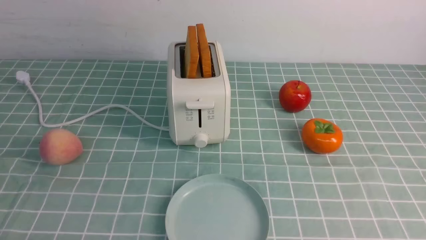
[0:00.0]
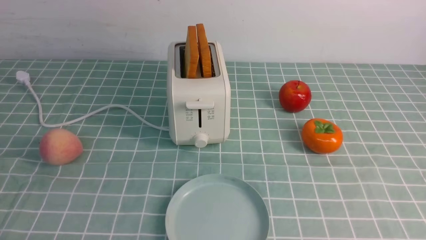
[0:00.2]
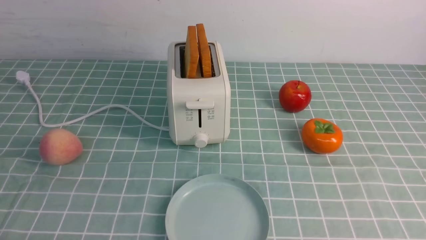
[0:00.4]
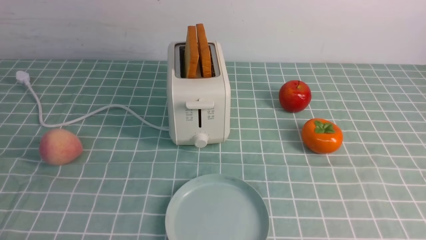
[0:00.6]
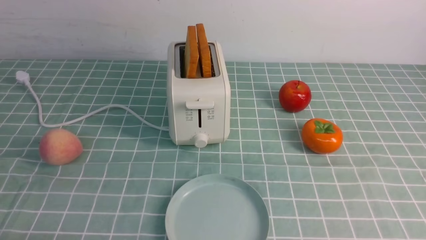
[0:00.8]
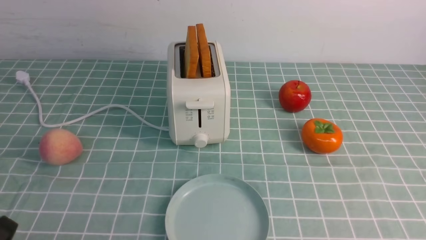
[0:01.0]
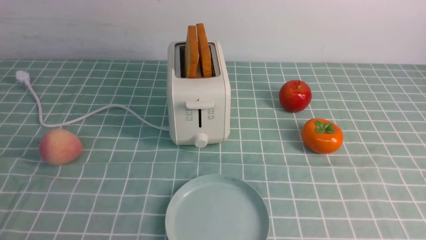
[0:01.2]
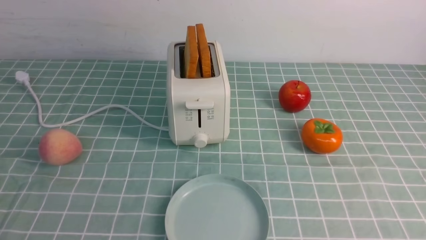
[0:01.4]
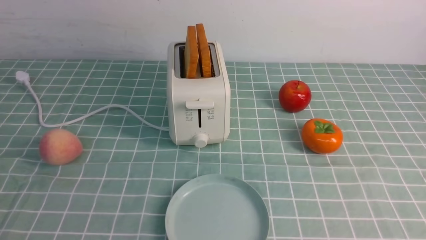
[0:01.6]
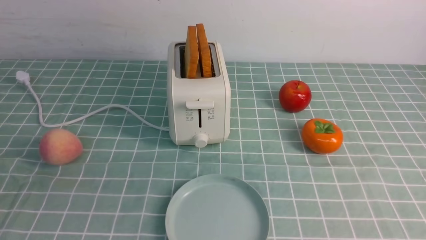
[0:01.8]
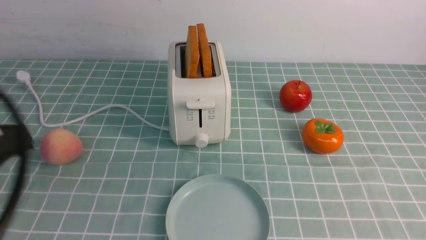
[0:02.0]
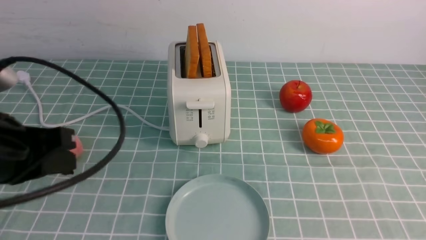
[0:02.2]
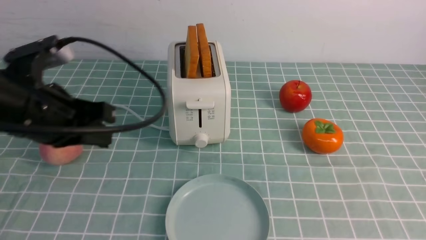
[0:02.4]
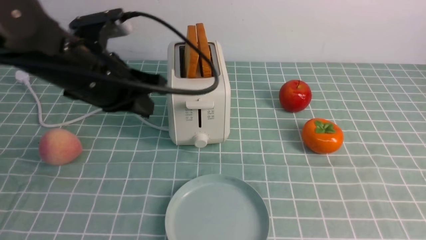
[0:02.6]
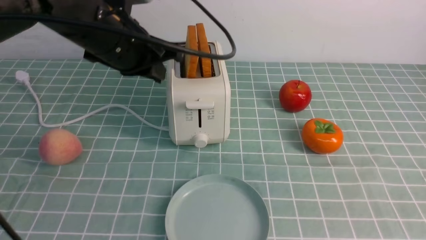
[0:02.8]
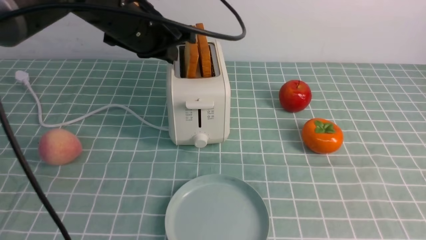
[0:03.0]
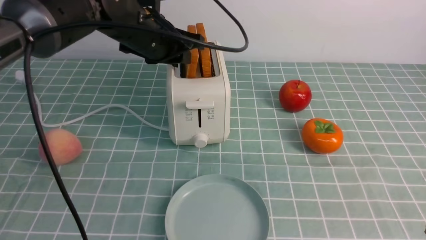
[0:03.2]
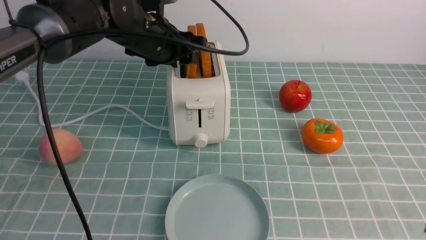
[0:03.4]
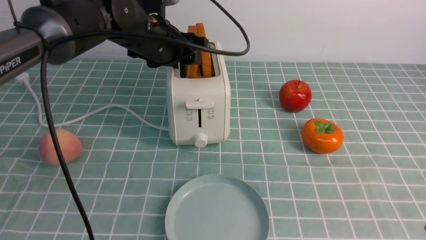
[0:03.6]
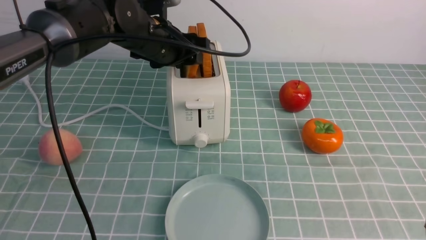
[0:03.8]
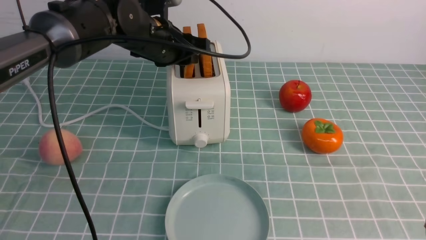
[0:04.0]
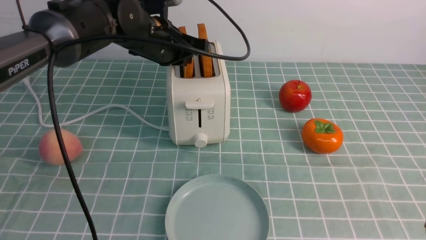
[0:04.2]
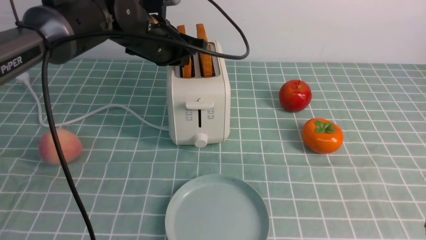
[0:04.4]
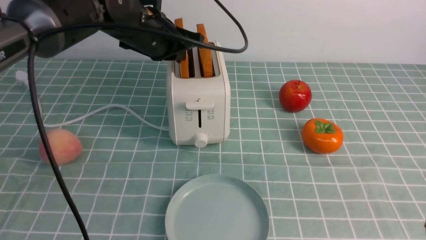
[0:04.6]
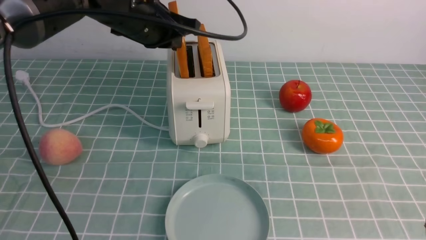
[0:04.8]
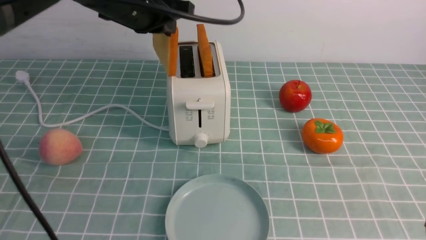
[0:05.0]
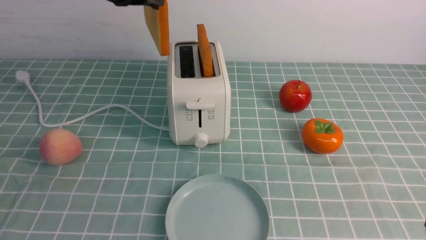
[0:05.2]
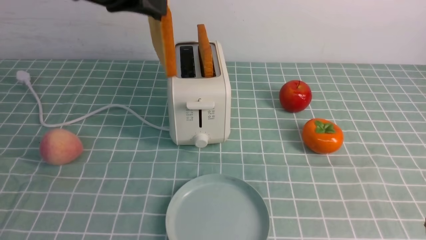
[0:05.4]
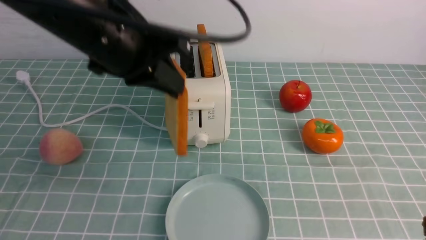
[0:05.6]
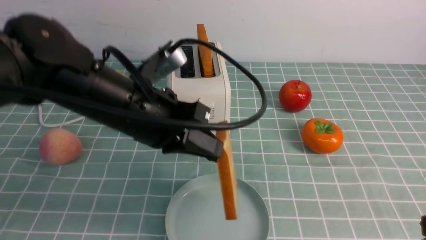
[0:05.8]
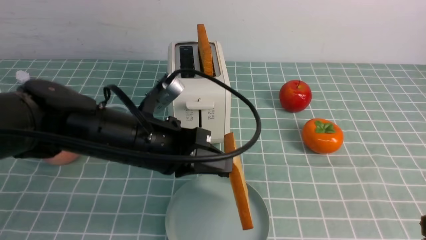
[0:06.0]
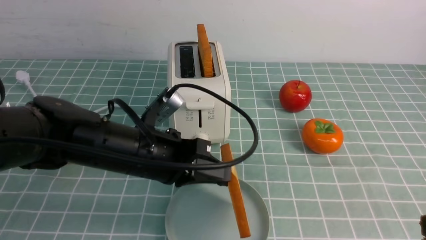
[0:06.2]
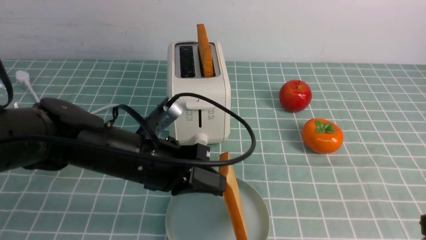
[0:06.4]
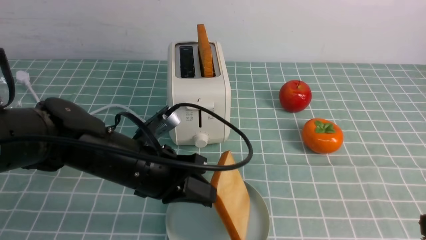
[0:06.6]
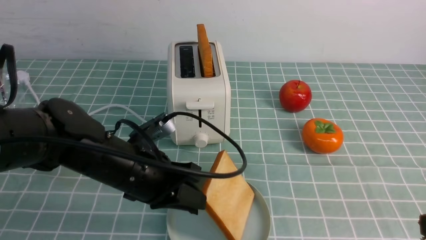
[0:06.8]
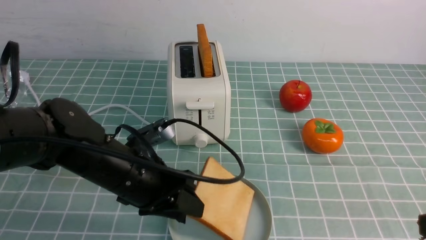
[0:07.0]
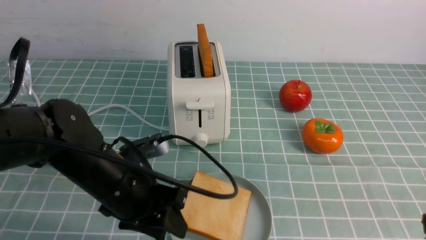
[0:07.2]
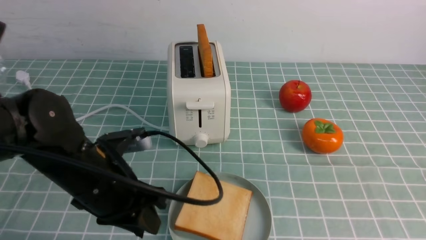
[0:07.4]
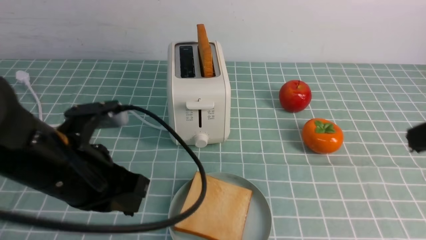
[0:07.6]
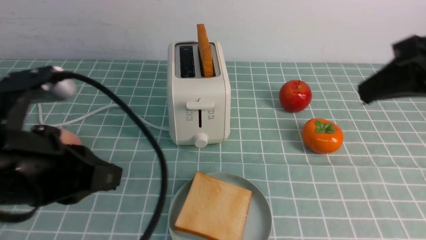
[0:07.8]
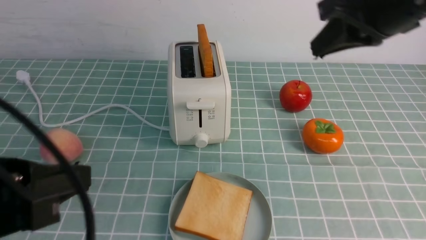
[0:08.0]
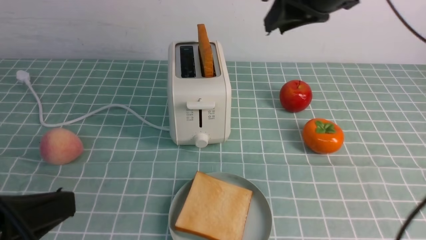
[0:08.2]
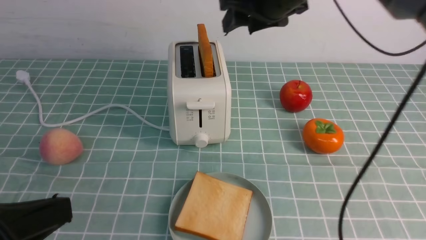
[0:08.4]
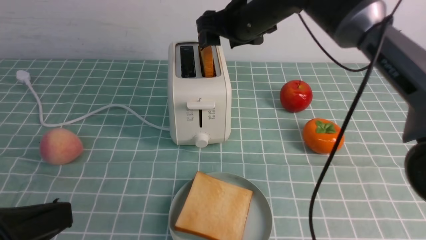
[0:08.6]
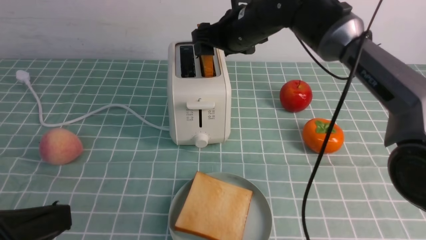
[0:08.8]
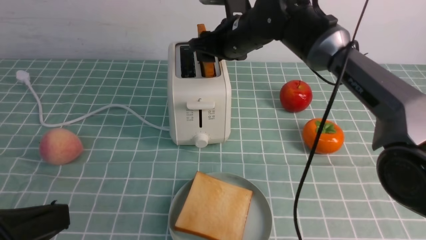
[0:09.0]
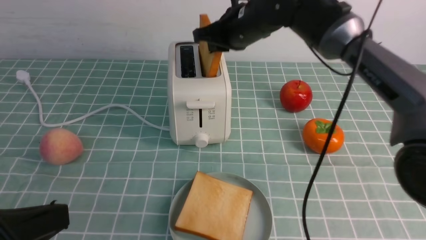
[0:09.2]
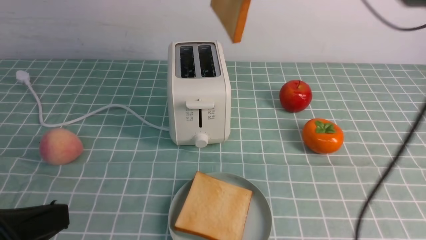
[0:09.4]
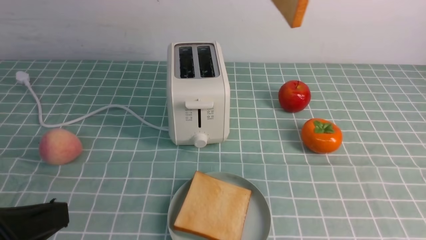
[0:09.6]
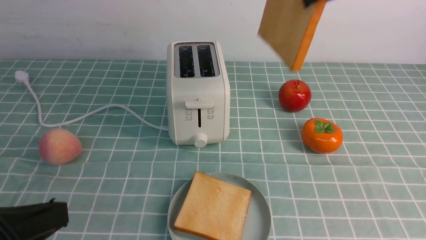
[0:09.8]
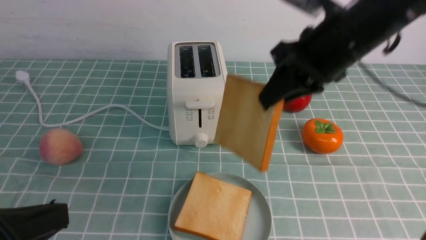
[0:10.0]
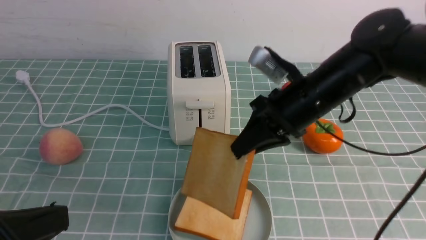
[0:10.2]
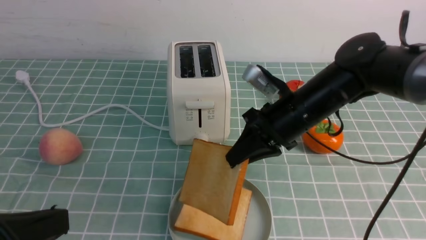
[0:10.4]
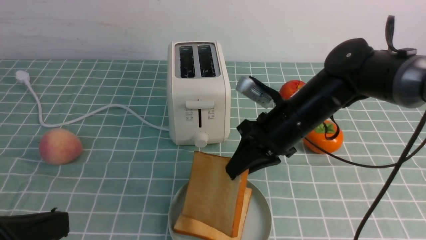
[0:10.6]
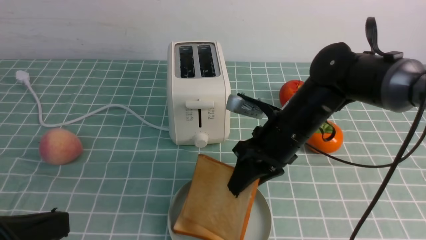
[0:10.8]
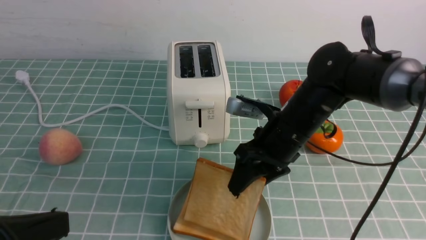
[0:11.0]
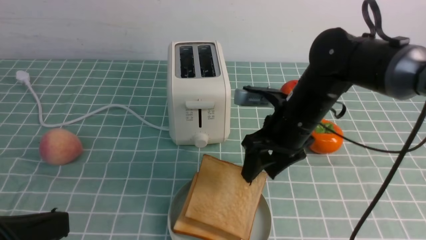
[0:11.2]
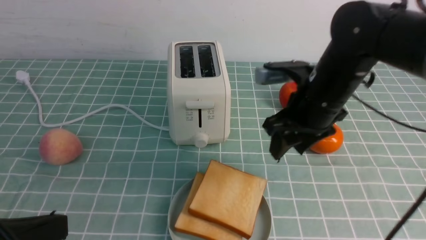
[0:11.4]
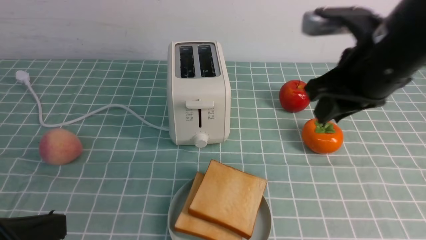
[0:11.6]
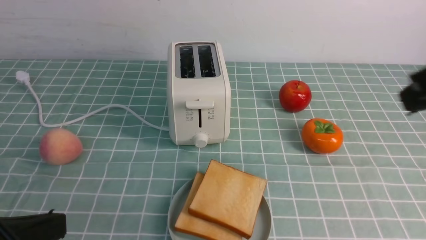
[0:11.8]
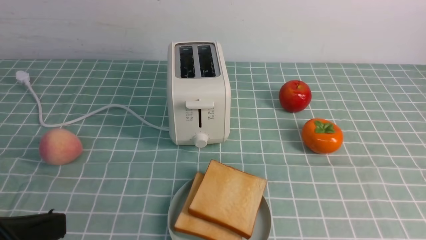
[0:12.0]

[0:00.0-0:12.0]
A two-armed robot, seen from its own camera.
Task of the whole recording: take toasted bread from bread machine on blue coffee table place on plate.
Step, 0:00.0 to 0:04.8: use the left arm to take out a slice of bread.
Step, 0:05.2 to 0:07.2: use the left arm to put a slice of bread into the empty plate.
Step, 0:07.4 to 0:09.2: use the right arm to take out a slice of bread.
Step, 0:09.4 to 0:11.2: use the right arm to put a slice of bread into the plate.
0:01.6 to 0:03.0: The right gripper heads upward and forward, covering about 15 cm, and closes its fingers; the left gripper shifts approximately 40 cm forward and to the right.
0:03.0 to 0:04.4: The left gripper opens, then closes again.
0:04.4 to 0:06.0: The left gripper moves backward, roughly 15 cm.
0:06.0 to 0:07.6: The left gripper goes roughly 10 cm backward and to the left, moves some 5 cm downward and comes back, and opens and closes again. Meanwhile the right gripper shifts roughly 10 cm upward and forward.
0:07.6 to 0:09.0: The left gripper is displaced backward and to the left by roughly 15 cm; the right gripper goes approximately 35 cm forward and to the left, and opens.
0:09.0 to 0:10.4: The right gripper travels backward and to the right by approximately 15 cm, travels upward and back again, about 15 cm each way, and closes up.
0:10.4 to 0:12.0: The right gripper is displaced backward, to the right and upward by roughly 35 cm, and opens and closes again.

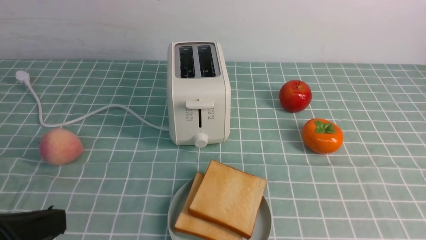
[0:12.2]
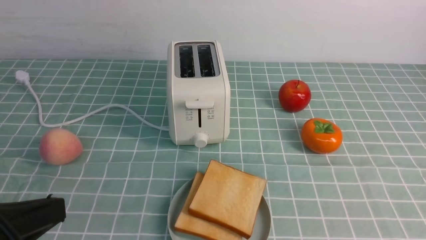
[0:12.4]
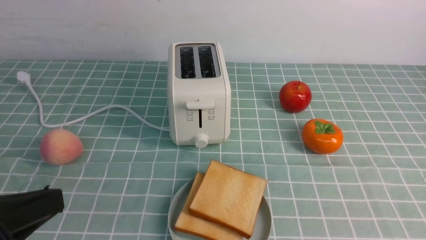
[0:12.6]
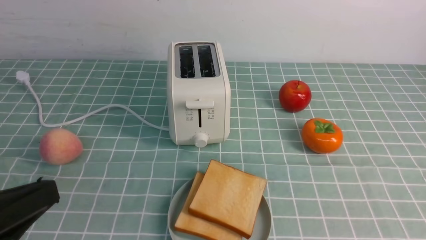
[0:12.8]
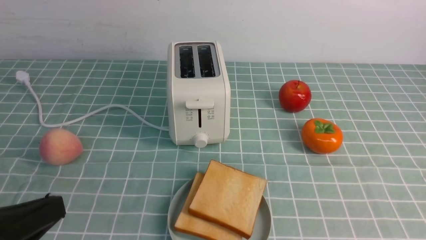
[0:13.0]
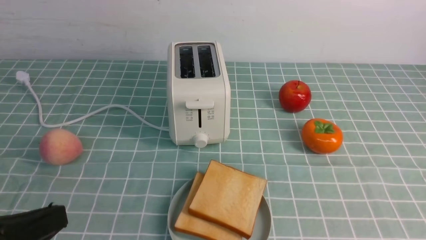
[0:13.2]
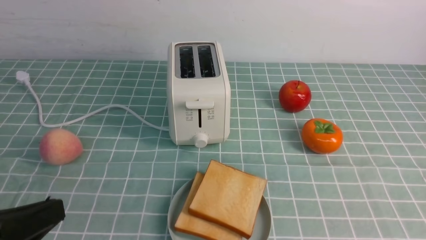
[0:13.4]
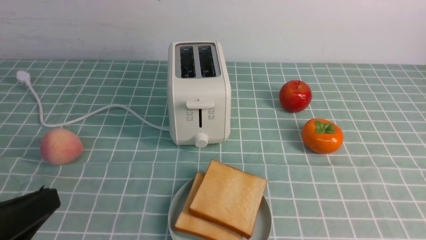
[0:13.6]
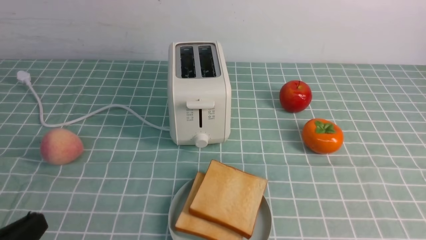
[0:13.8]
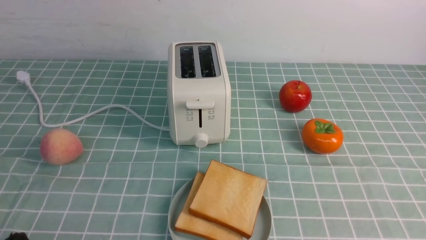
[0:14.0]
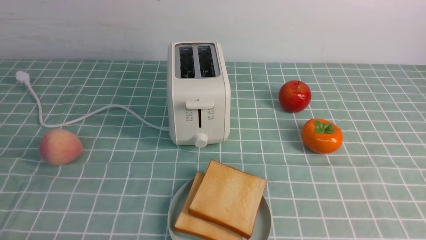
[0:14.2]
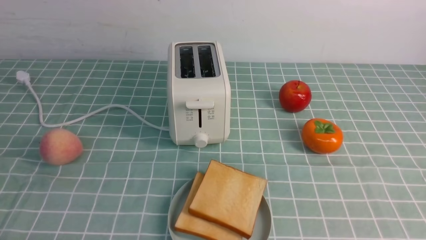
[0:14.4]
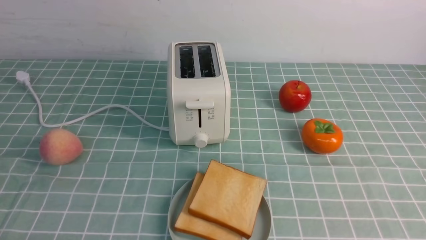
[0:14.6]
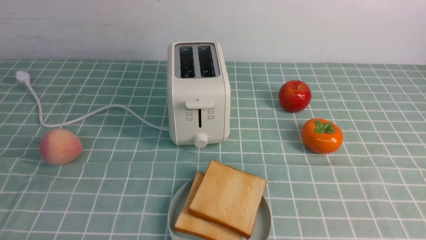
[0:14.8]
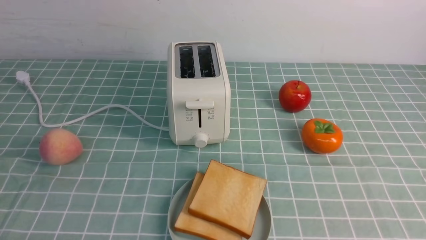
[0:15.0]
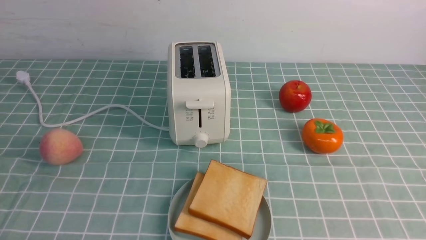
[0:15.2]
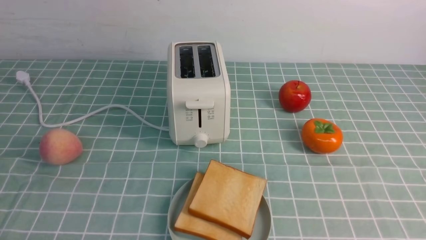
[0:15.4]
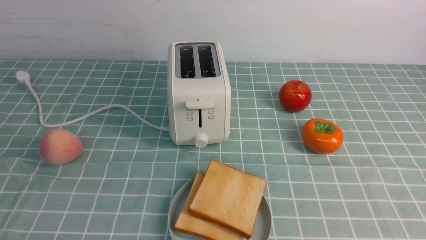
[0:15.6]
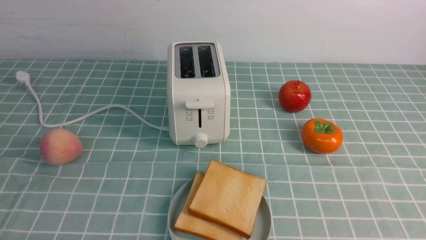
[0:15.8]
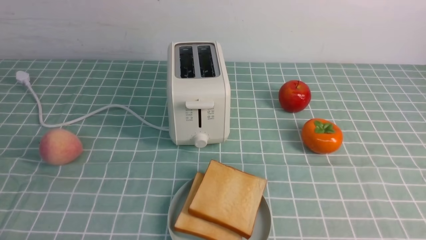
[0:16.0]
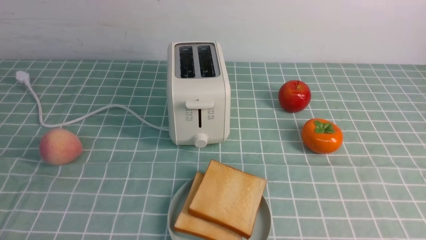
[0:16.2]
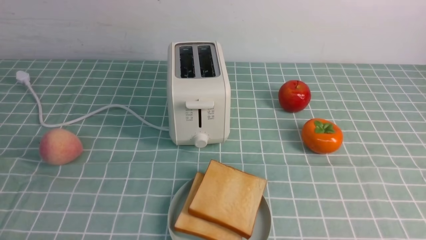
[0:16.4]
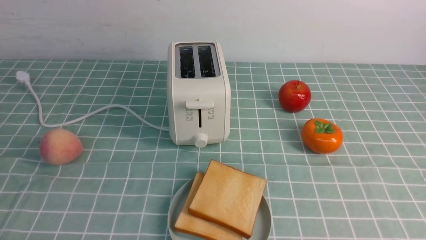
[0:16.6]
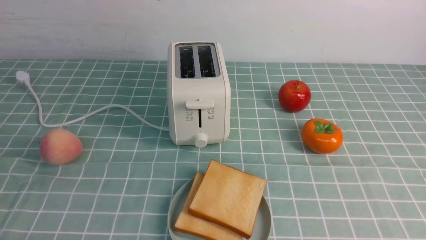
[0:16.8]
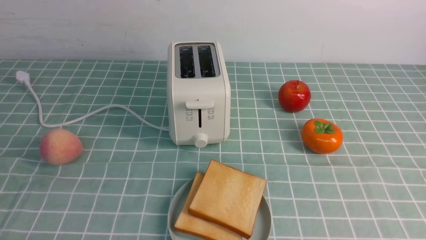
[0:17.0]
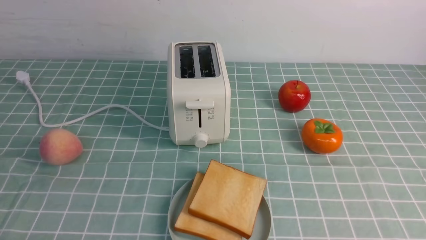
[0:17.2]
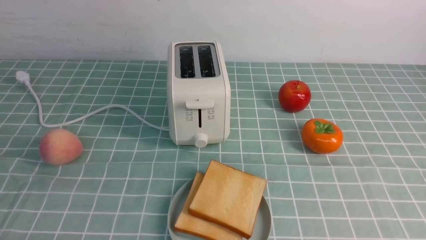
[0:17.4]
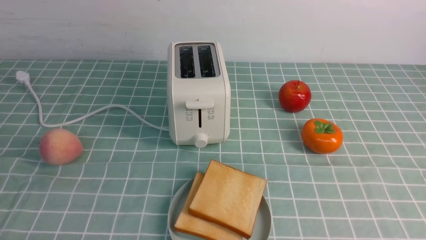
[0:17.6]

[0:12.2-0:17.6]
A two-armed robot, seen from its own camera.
Task of the whole recording: take toasted bread from bread machine on blue coffee table place on plate.
0:12.2 to 0:13.6: The left gripper changes place by some 5 cm.
0:13.6 to 0:15.0: The left gripper is displaced downward by approximately 10 cm.
